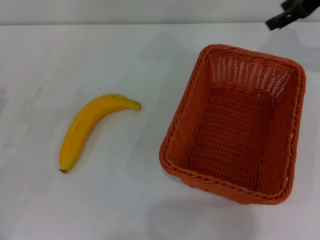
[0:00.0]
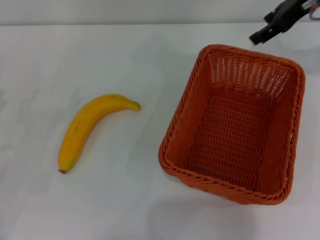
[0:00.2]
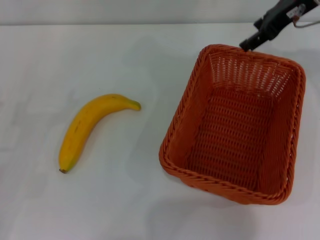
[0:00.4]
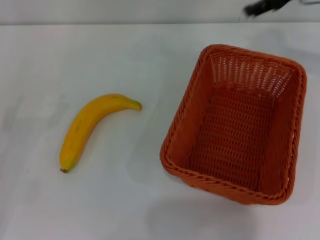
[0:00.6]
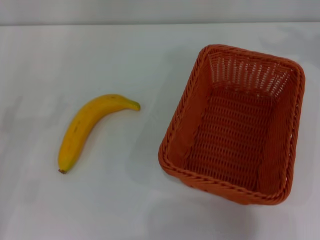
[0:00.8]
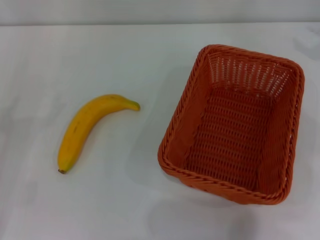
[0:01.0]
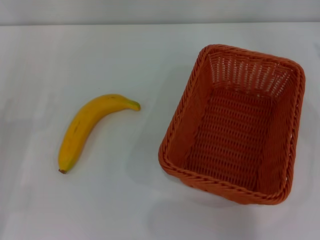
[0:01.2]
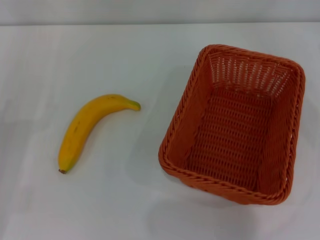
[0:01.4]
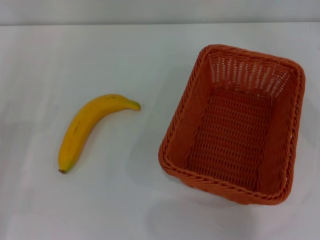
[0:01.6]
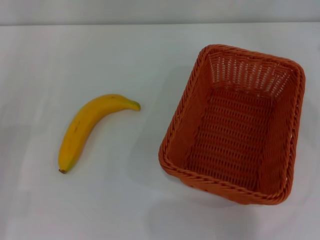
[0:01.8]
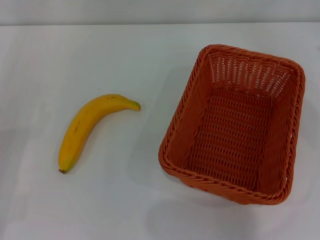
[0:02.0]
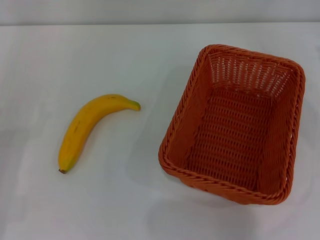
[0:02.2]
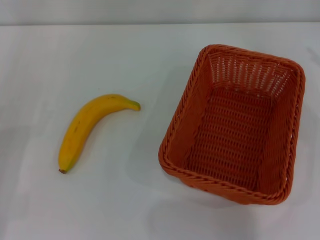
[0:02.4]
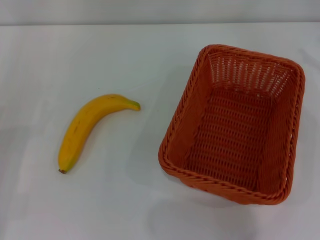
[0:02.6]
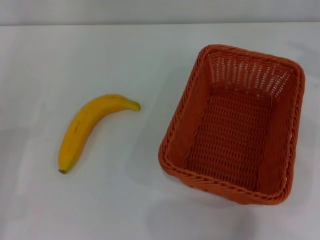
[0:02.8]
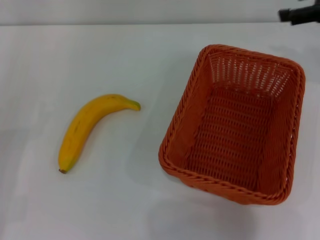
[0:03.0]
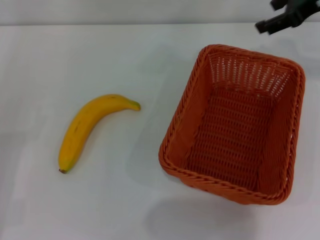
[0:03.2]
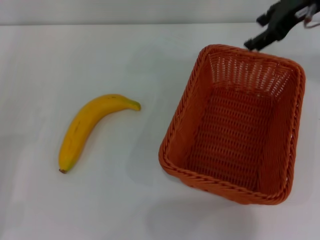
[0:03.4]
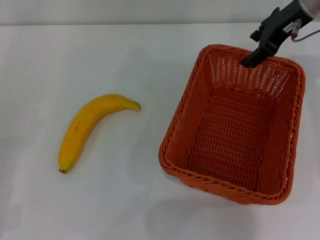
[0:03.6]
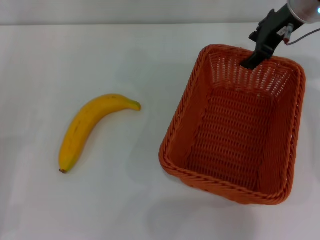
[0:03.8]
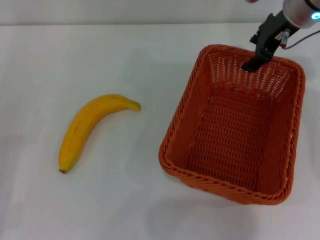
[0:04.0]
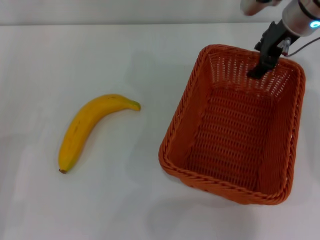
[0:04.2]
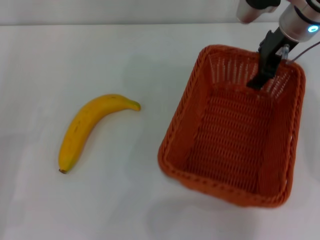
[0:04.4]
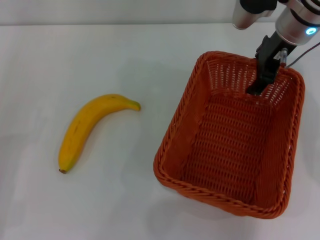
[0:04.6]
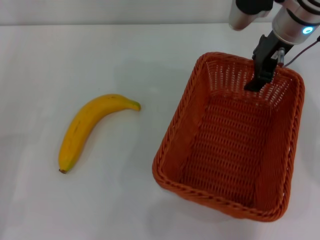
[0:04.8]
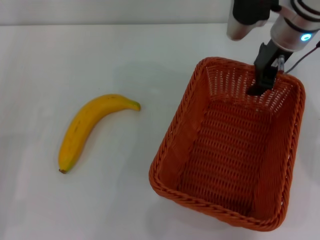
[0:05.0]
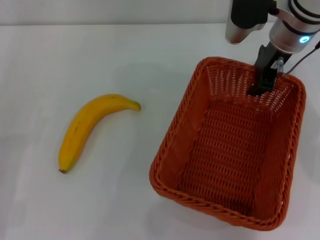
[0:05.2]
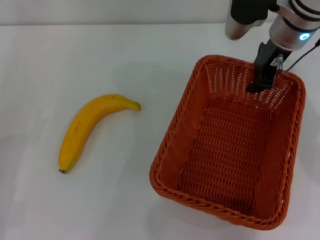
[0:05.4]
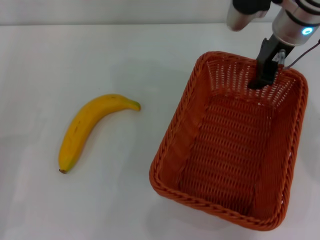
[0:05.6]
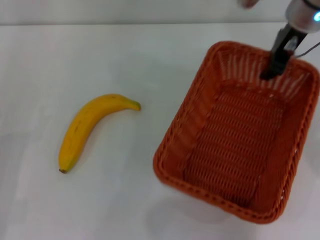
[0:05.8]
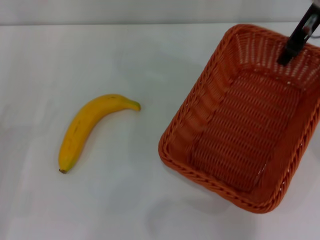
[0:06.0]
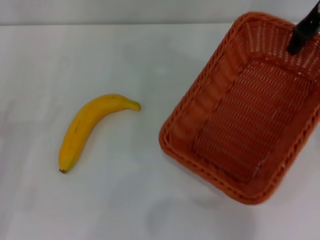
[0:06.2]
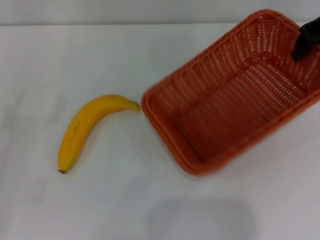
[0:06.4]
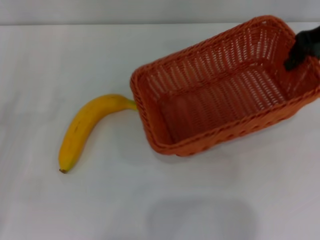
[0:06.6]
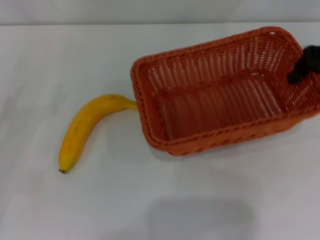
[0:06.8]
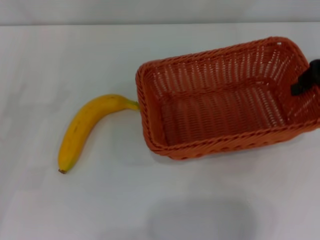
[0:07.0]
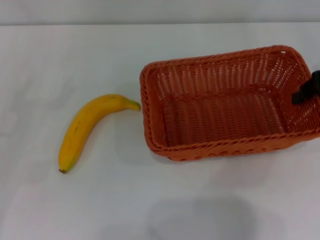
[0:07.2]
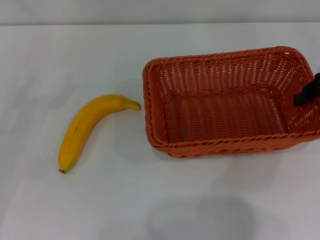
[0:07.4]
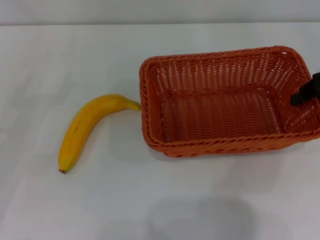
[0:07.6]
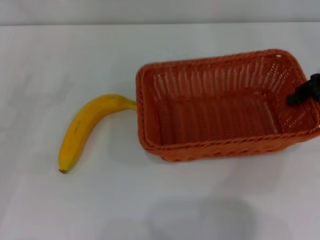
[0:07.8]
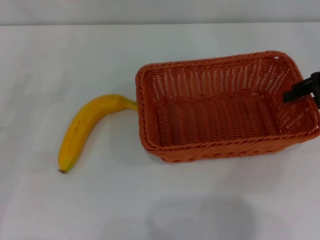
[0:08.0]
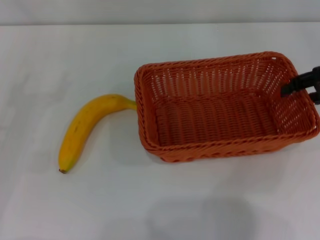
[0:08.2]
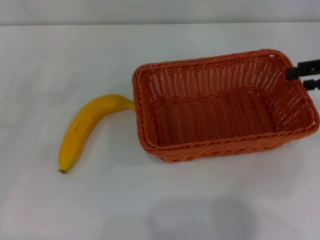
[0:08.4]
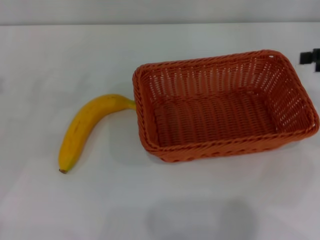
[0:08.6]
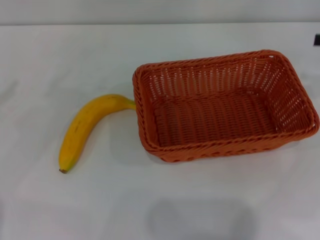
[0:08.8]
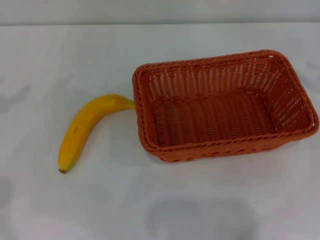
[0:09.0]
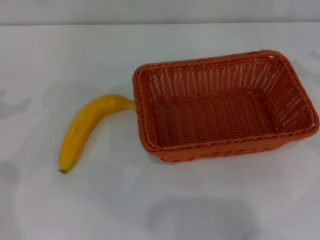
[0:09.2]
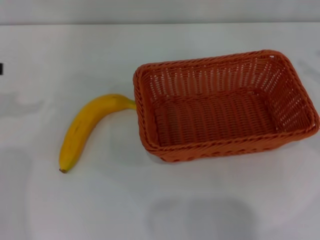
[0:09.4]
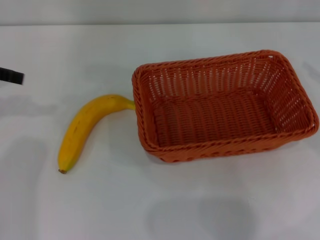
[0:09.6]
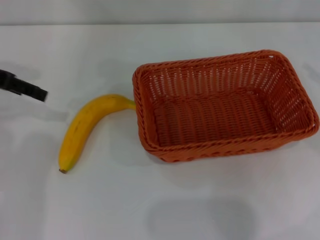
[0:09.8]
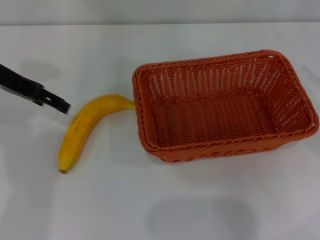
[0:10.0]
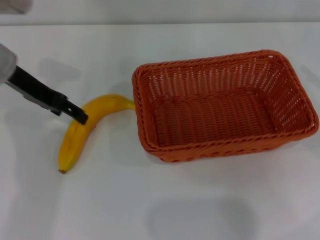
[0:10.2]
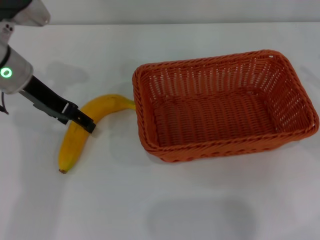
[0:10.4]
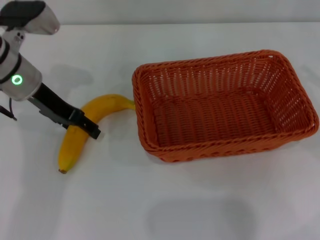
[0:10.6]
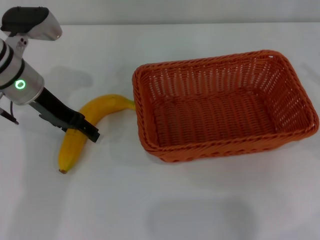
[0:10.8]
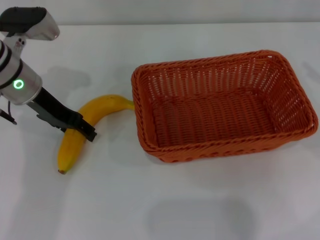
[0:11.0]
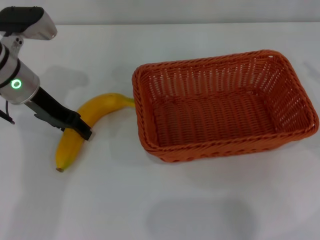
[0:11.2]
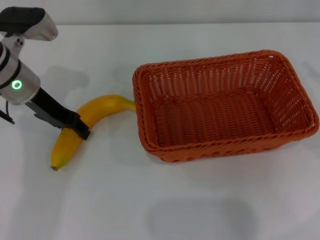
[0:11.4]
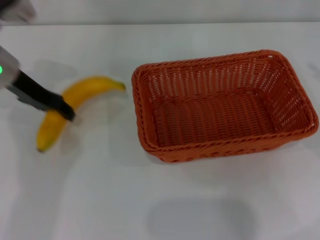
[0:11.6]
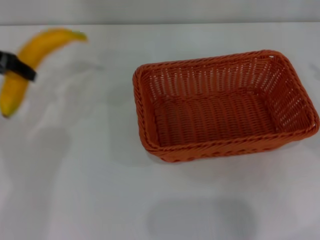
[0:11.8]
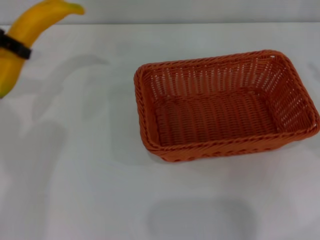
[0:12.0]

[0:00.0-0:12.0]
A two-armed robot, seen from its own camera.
Step, 0:00.0 to 0:06.0: Pick up the light basket with the right gripper.
Step, 0:06.4 to 0:08.6: Place the light basket in the center of view with the right gripper.
Step, 0:08.8 to 0:11.6: Pick up the banana with the left gripper.
0:00.0 to 0:01.6: The right gripper is displaced to the right and backward by approximately 20 cm.
0:01.6 to 0:03.0: The right gripper moves to the left and forward, some 15 cm.
0:03.0 to 0:04.4: The right gripper is displaced to the left by roughly 15 cm.
0:04.4 to 0:06.0: The right gripper moves upward, roughly 5 cm, and closes up.
0:06.0 to 0:07.6: The right gripper moves to the right, backward and downward, roughly 15 cm. Meanwhile the left gripper goes approximately 5 cm forward.
0:07.6 to 0:09.0: The right gripper is displaced to the right by about 5 cm, and opens; the left gripper travels upward by roughly 10 cm.
0:09.0 to 0:10.4: The left gripper is displaced to the right and forward by some 20 cm.
0:10.4 to 0:12.0: The left gripper moves upward and to the left, approximately 15 cm, and closes.

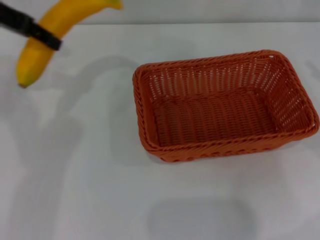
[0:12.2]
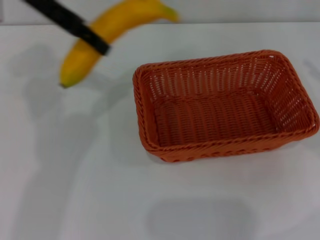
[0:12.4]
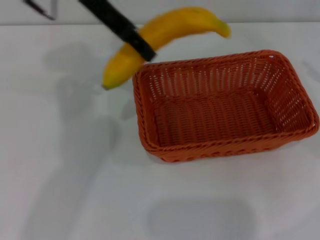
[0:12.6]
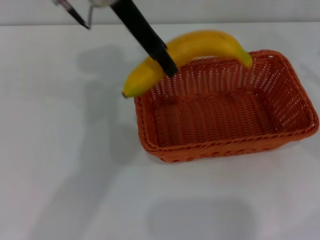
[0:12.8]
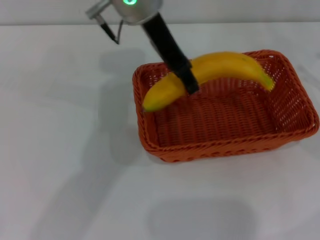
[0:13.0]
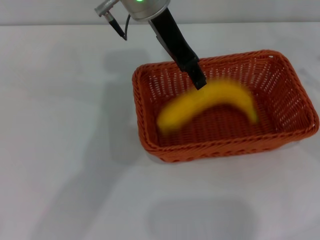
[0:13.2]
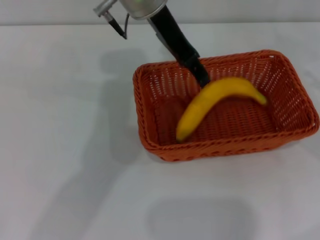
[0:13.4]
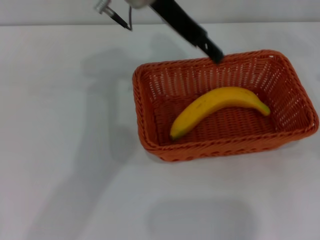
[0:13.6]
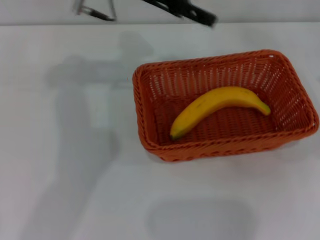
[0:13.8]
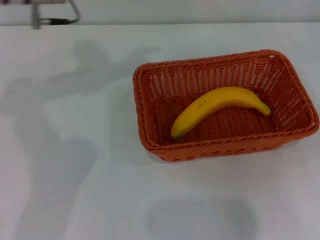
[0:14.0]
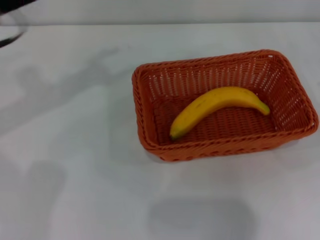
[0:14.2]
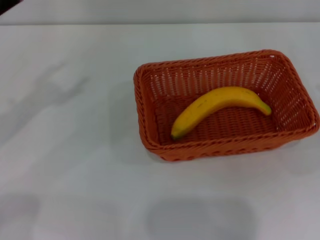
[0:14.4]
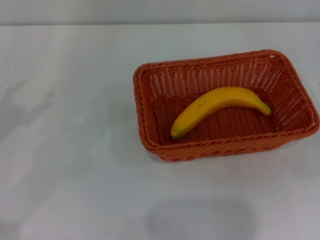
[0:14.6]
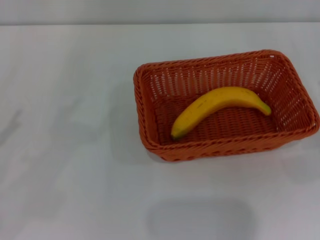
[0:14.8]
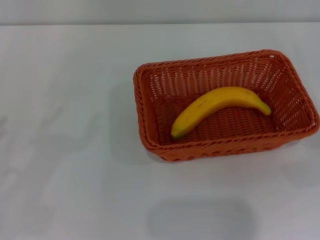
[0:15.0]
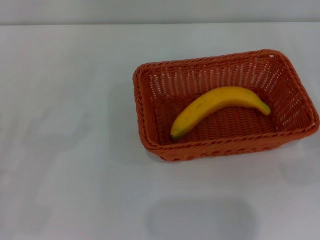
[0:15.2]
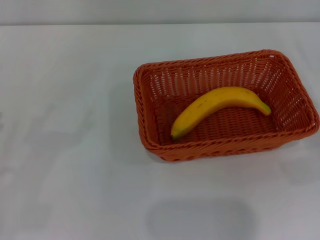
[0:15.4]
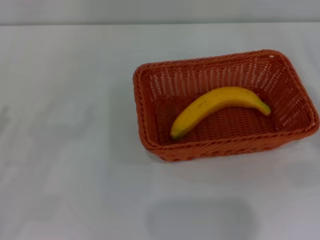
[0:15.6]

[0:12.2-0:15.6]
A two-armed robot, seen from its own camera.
Step, 0:12.2 to 0:13.6: Place the banana into the light basket with the left gripper.
0:12.2 to 0:13.8: The left gripper moves to the right, some 15 cm, and opens its fingers.
0:13.8 to 0:15.6: The left gripper travels to the left, backward and downward by some 40 cm, while the right gripper is displaced downward by roughly 10 cm.

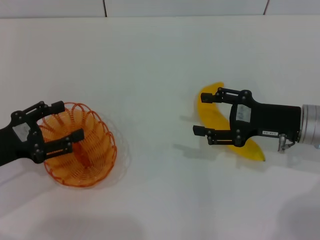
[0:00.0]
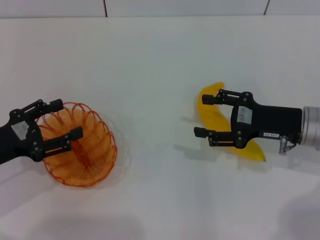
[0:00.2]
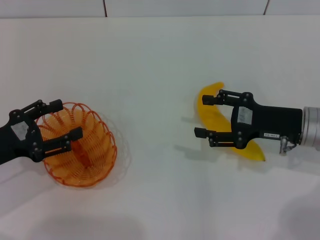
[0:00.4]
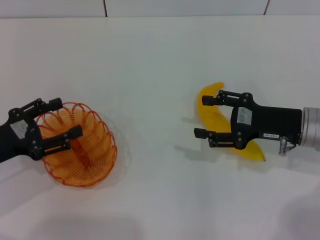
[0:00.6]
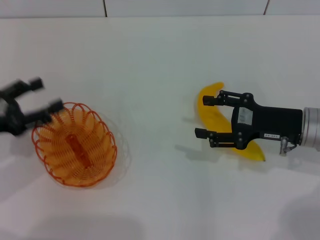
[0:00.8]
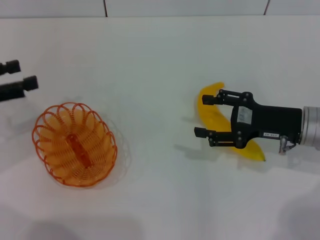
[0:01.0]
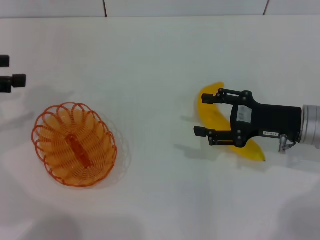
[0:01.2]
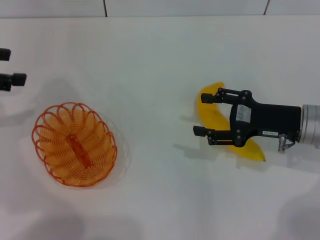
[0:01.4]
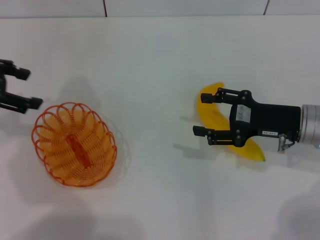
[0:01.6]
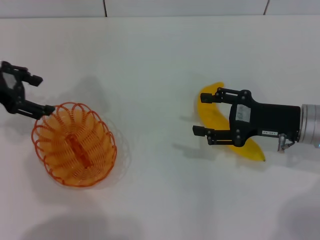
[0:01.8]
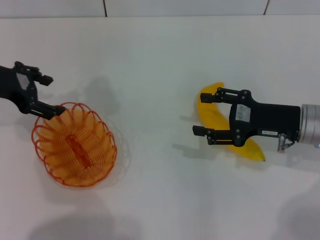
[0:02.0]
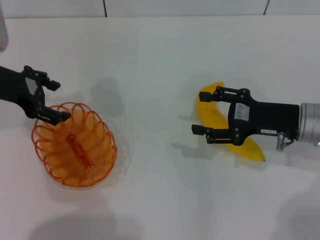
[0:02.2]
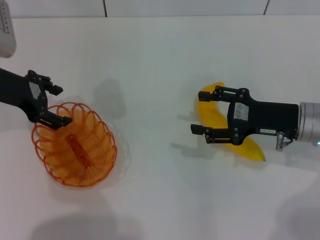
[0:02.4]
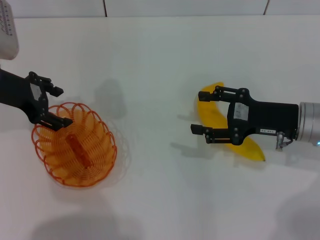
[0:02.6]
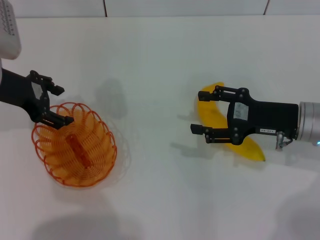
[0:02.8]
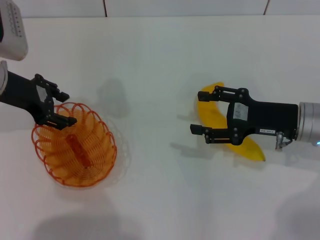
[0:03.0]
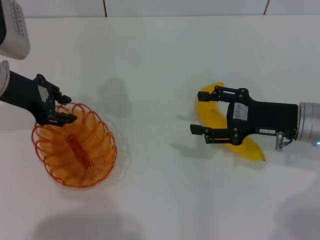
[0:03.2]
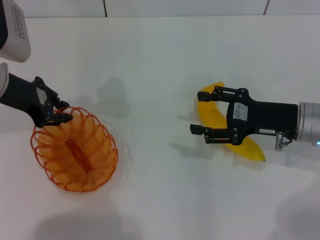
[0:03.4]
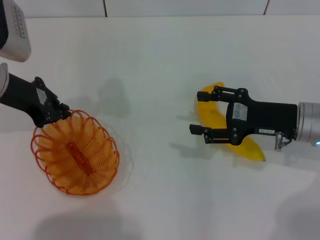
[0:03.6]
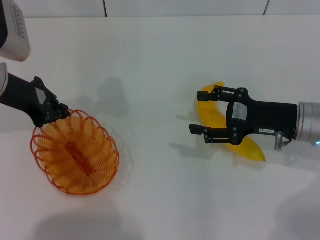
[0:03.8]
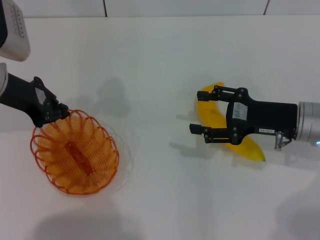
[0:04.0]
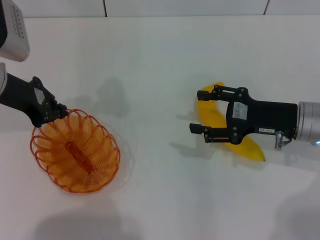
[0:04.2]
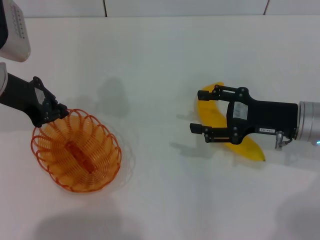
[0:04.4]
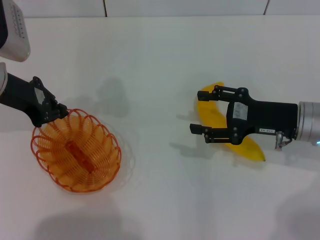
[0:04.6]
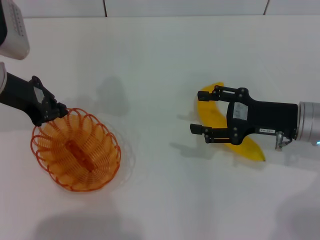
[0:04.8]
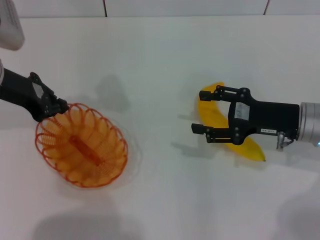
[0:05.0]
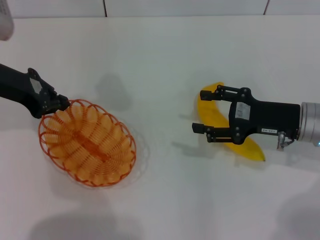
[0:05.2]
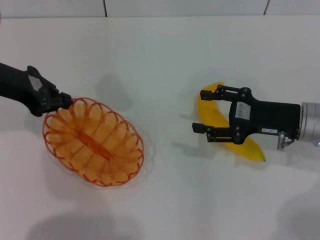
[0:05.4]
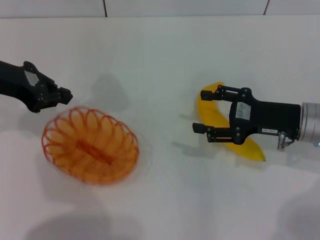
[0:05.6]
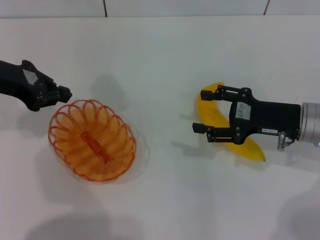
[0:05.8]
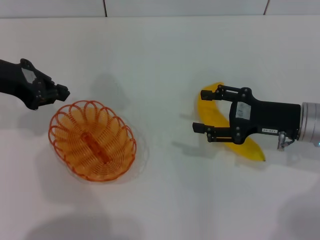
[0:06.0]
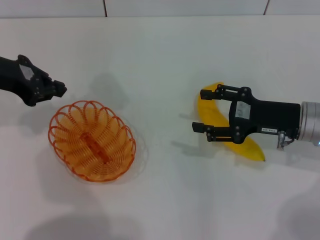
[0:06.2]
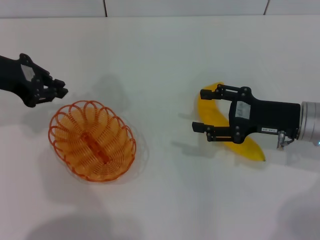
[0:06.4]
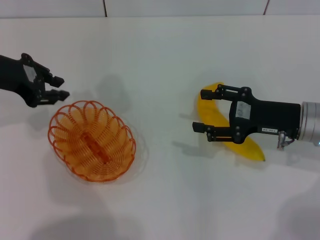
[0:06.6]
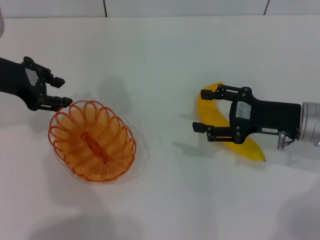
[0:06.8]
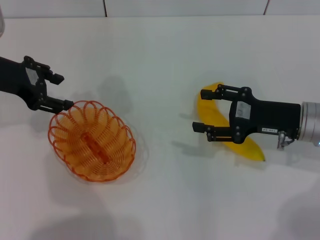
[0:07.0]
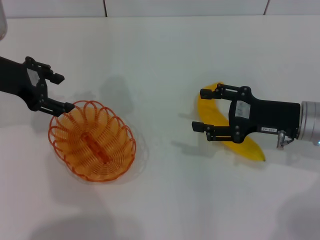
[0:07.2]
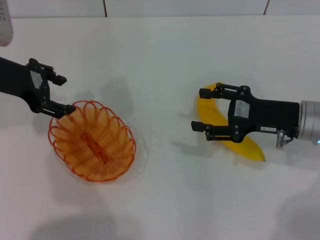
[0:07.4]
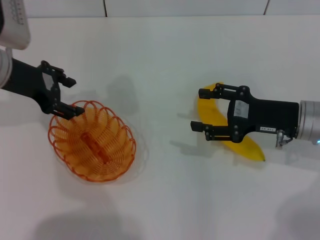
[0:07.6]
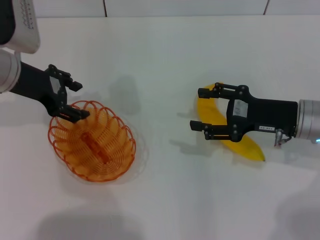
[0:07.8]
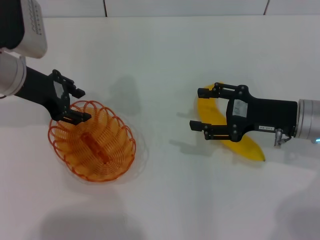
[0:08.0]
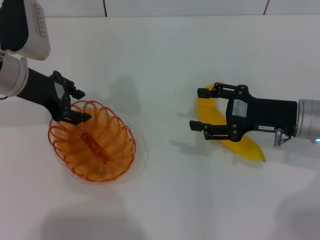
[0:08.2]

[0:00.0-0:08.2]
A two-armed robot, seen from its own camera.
Step, 0:00.0 to 0:05.2: Pick up the basket with the left gripper.
0:00.0 to 0:01.6: The left gripper goes approximately 15 cm upward and forward.
0:01.6 to 0:03.2: The left gripper is displaced to the right by some 10 cm.
0:03.2 to 0:05.0: The left gripper closes up.
0:05.0 to 0:06.6: The grippers make only small movements.
0:06.6 to 0:08.2: The left gripper changes place by roughly 5 cm, and opens.
